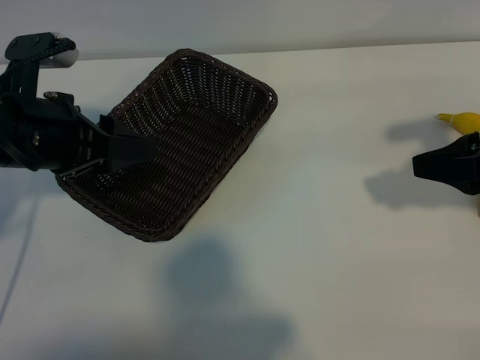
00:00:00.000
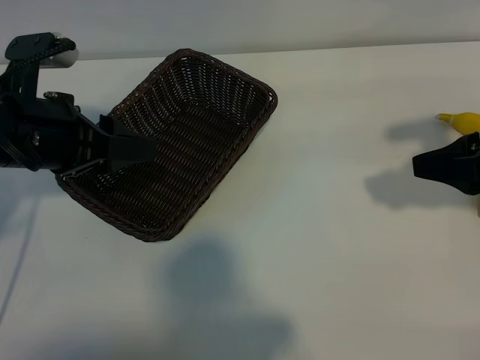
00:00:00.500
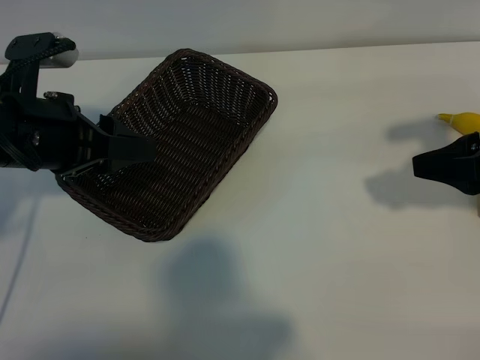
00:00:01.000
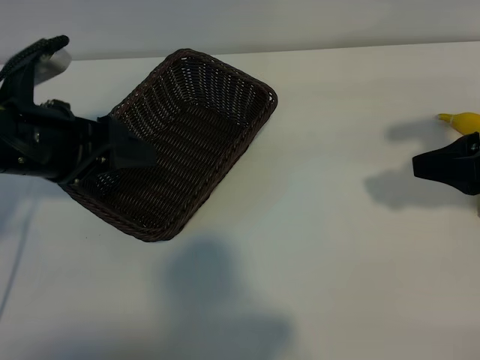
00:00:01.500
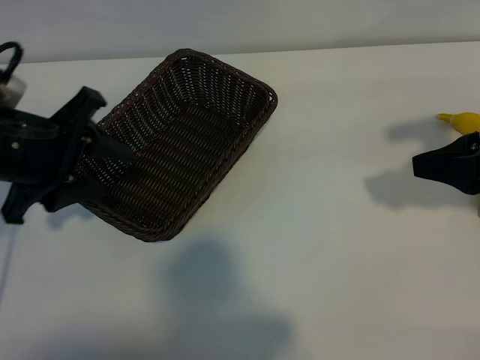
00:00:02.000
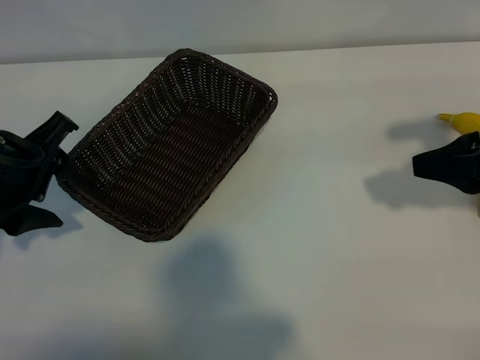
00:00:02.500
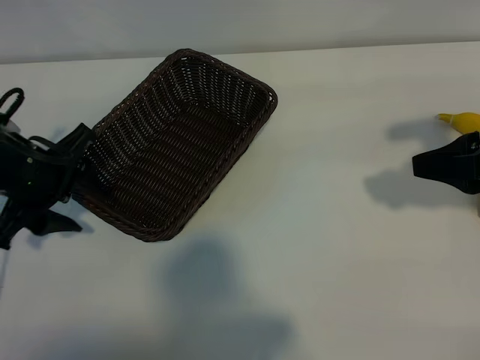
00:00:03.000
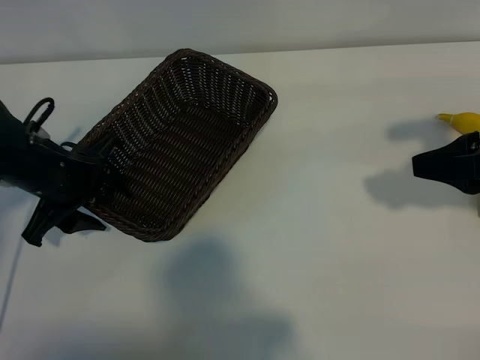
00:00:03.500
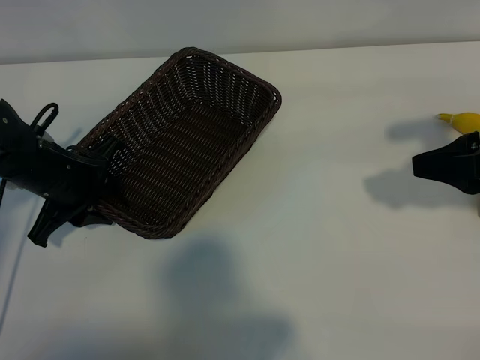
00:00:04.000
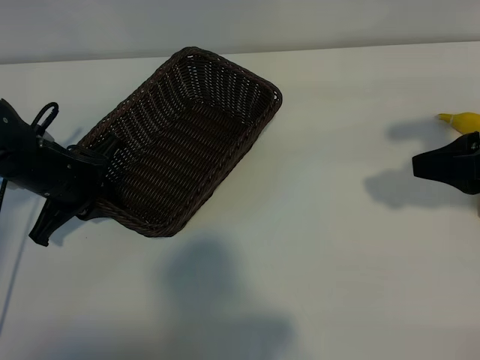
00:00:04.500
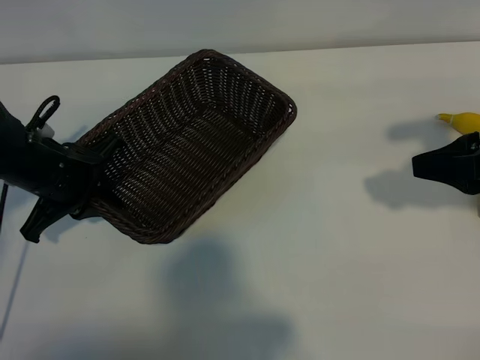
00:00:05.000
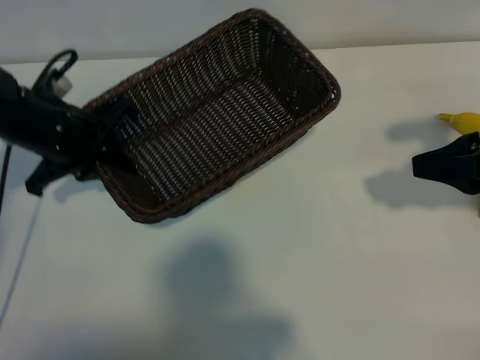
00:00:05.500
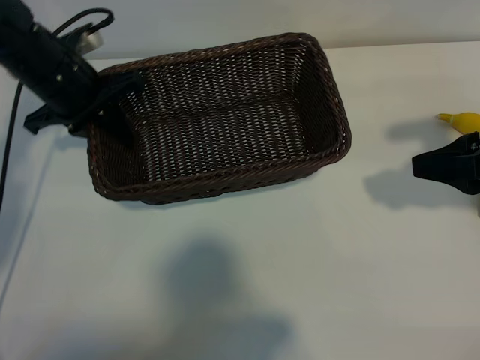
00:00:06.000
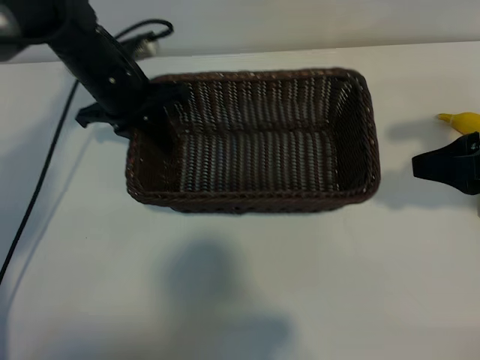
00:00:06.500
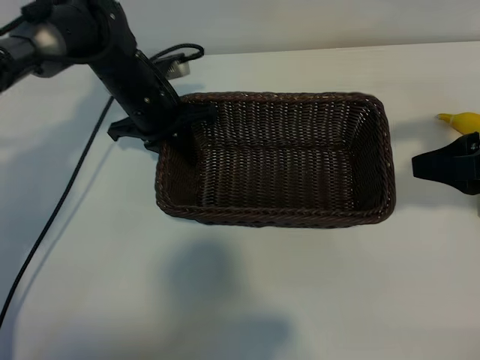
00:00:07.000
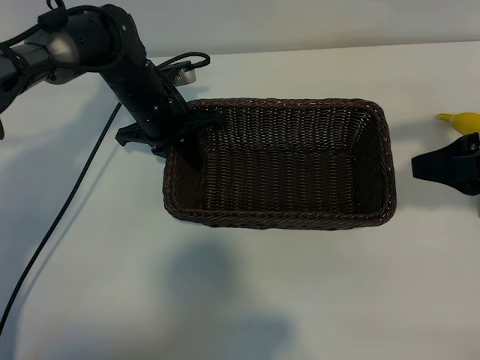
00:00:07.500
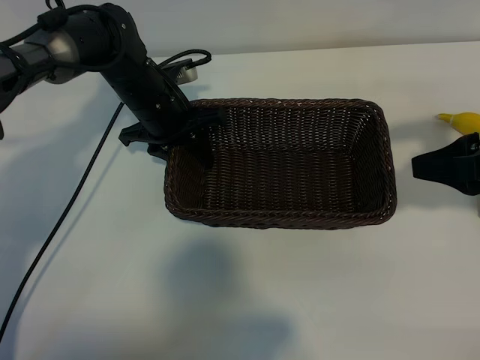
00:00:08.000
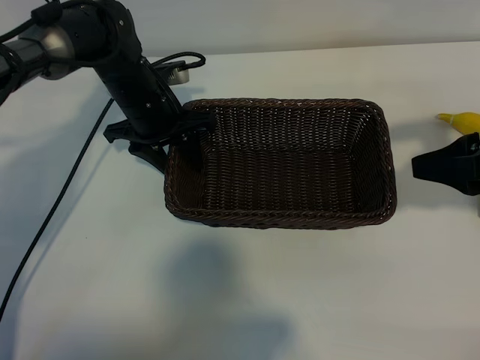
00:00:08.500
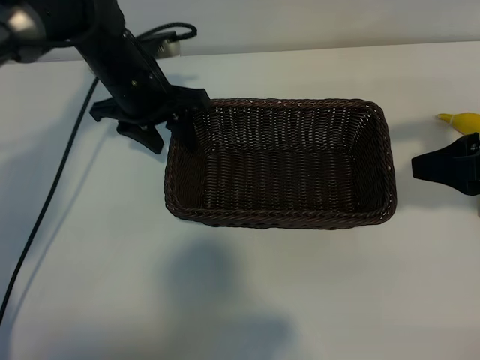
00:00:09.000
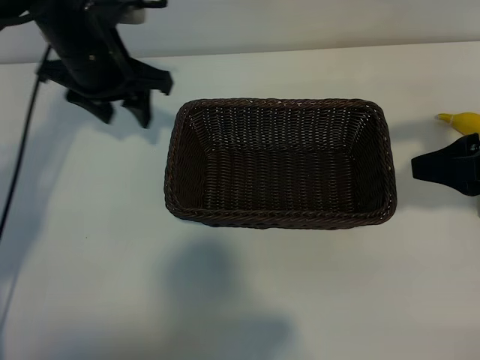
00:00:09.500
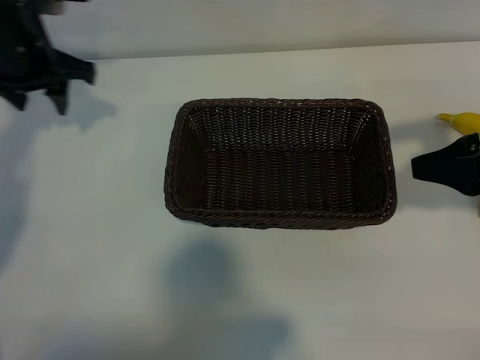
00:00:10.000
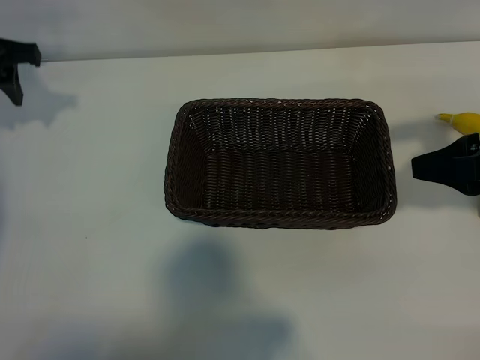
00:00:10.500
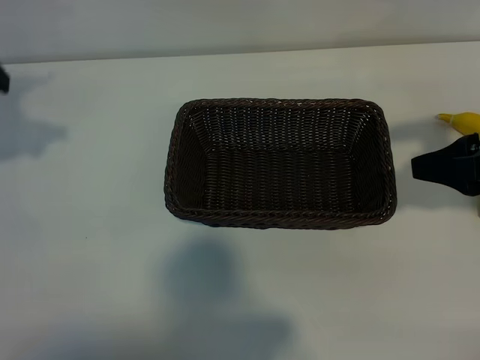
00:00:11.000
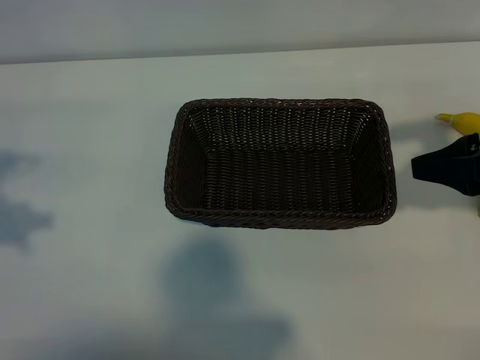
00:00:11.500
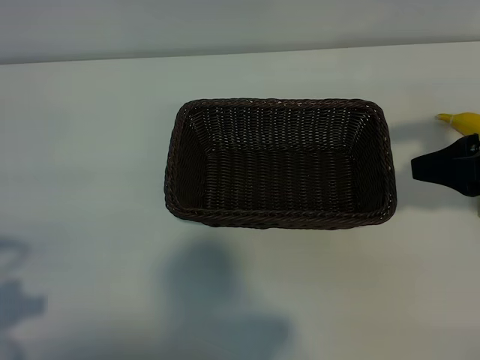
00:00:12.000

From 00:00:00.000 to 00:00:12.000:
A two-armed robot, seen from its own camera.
Task of the whole recording: pick up the banana and put it into the basket.
Step, from 00:00:01.500 to 00:00:04.500: Grasp the basket with the left gripper.
Step, from 00:00:05.000 to 00:00:09.000: Place the basket in the center of the table with the left gripper.

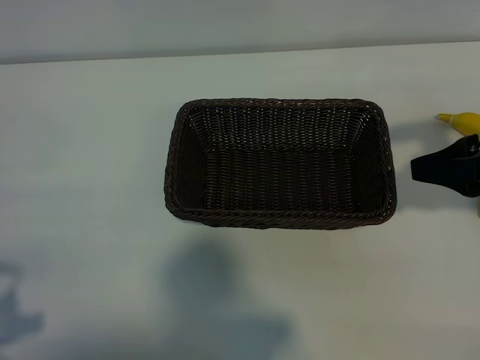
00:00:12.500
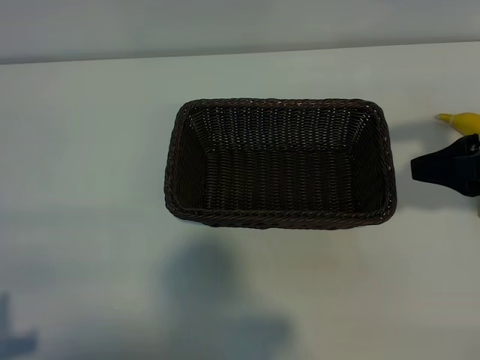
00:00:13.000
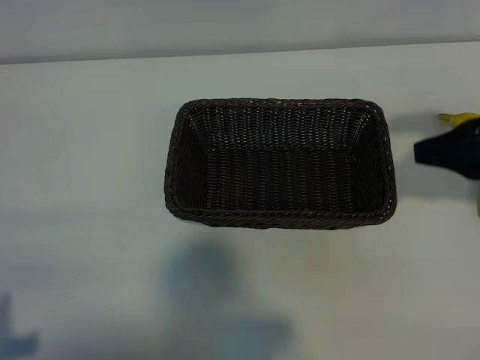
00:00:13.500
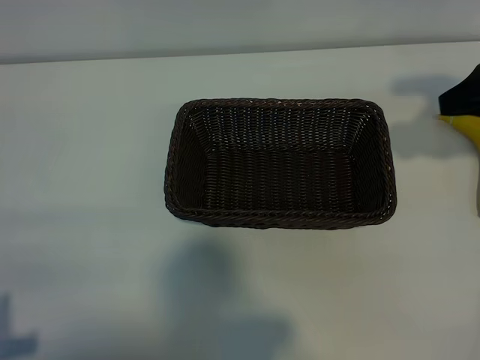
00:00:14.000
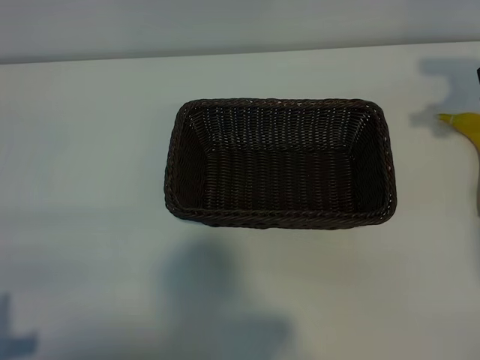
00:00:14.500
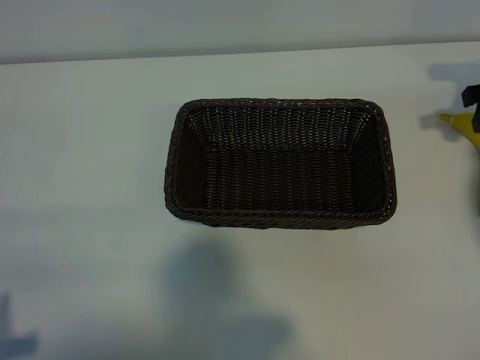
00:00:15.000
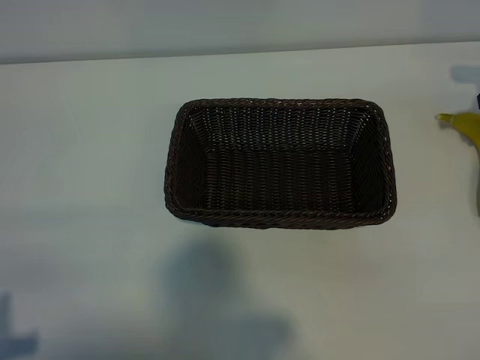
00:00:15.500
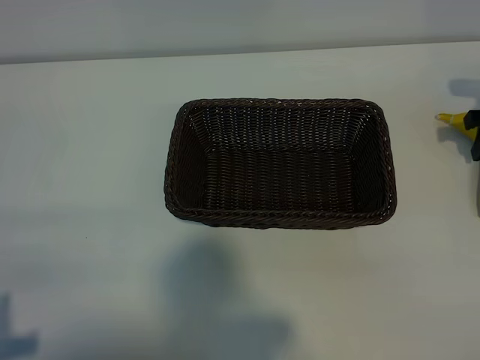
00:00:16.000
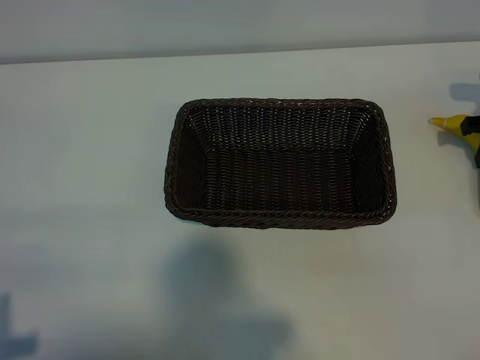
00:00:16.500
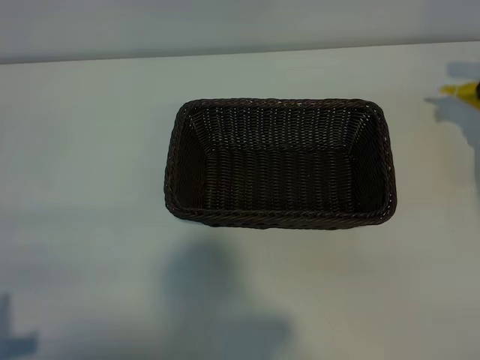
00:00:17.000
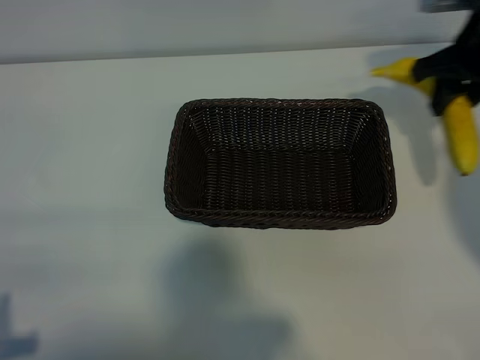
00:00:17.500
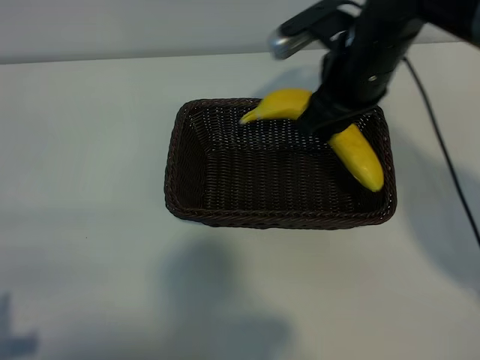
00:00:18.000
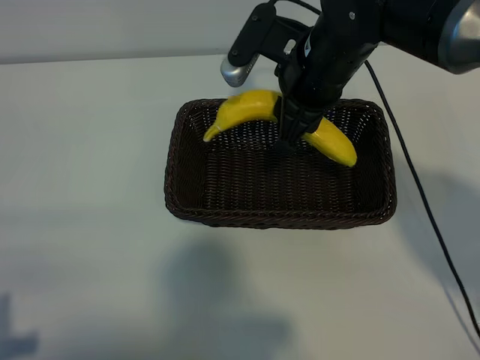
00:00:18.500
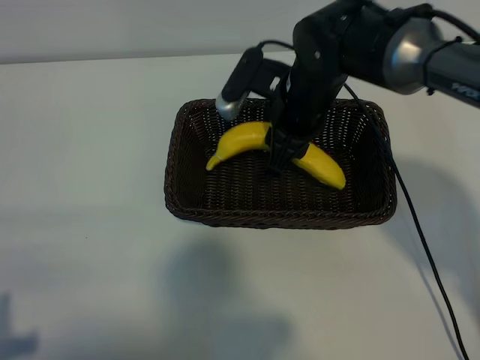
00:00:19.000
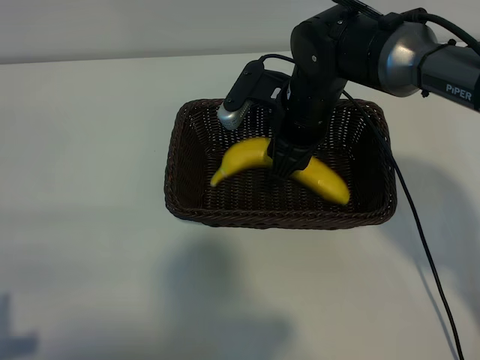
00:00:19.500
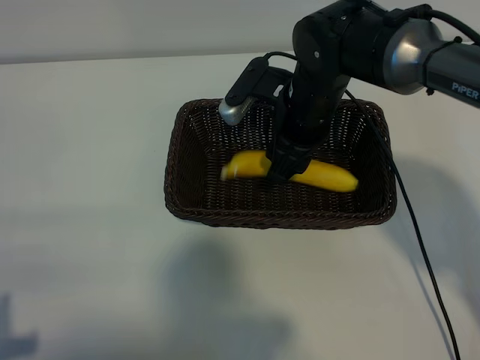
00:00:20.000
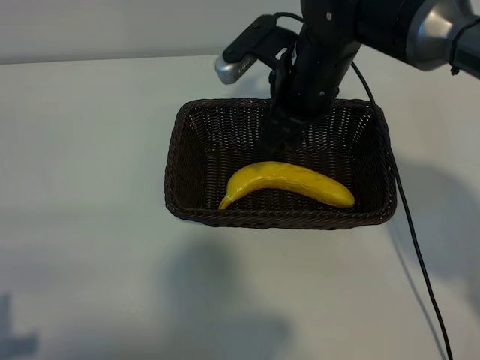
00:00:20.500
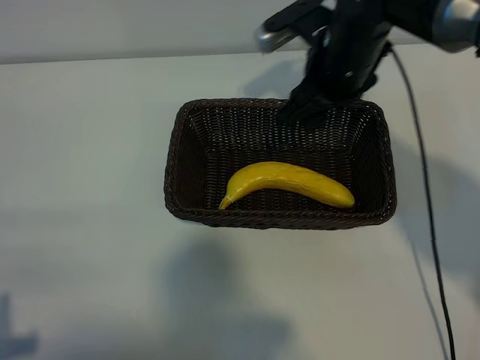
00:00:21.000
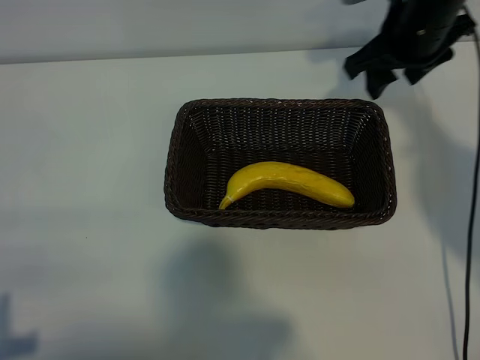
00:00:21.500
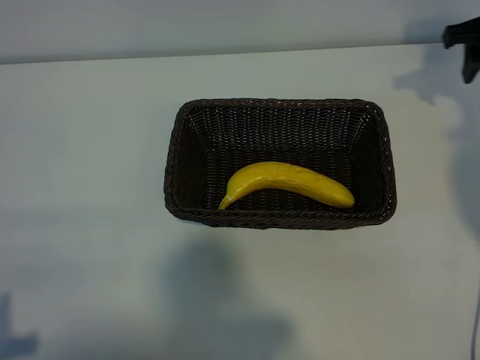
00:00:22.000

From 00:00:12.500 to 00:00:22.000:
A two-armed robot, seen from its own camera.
Task of the whole recording: pick up the banana and put it into the basket.
Step, from 00:00:12.500 to 00:00:16.000: Grasp the banana with right gripper.
Step, from 00:00:17.000 to 00:00:20.500: Place the banana in the basket with right gripper.
